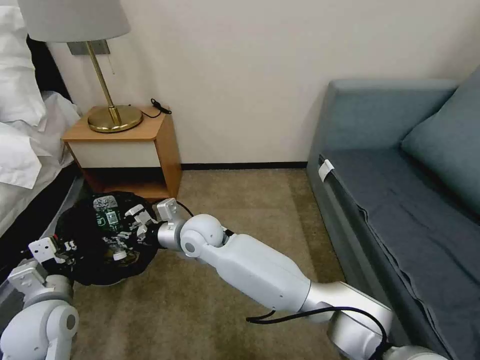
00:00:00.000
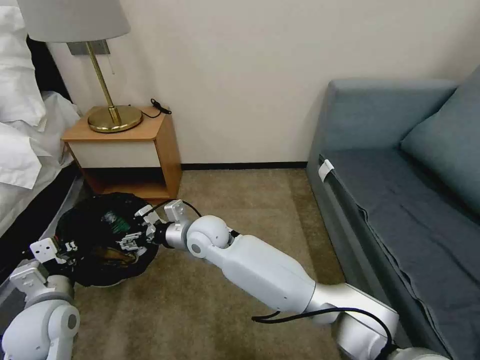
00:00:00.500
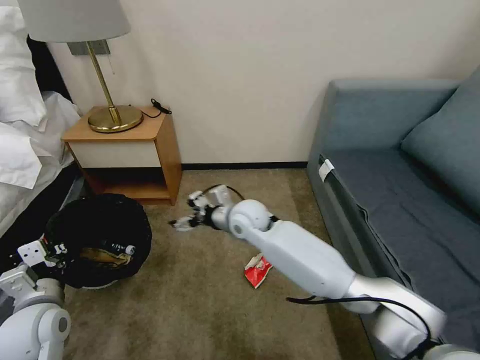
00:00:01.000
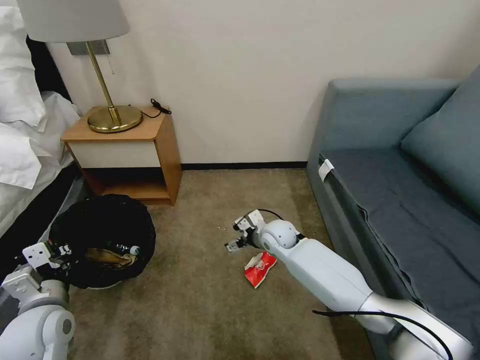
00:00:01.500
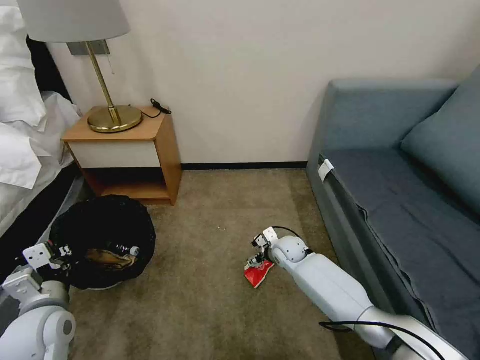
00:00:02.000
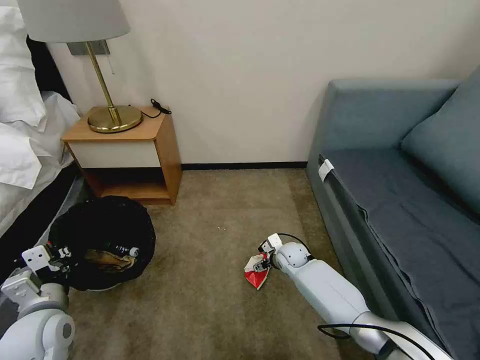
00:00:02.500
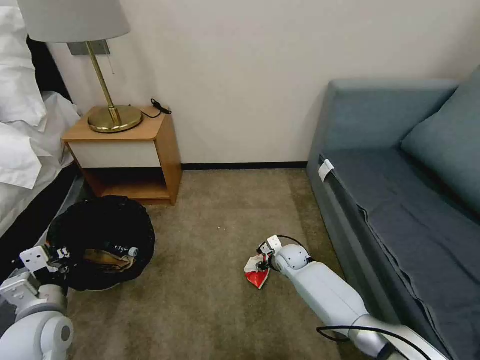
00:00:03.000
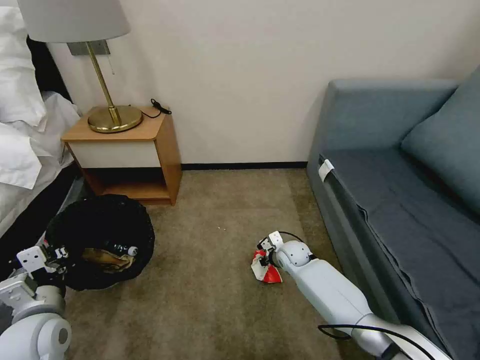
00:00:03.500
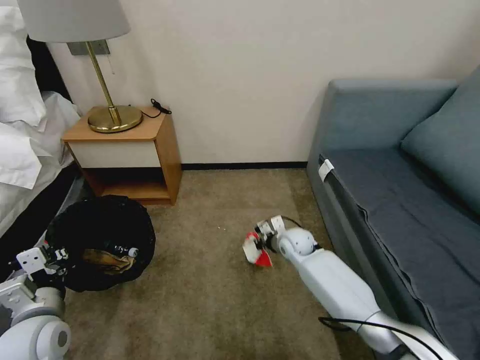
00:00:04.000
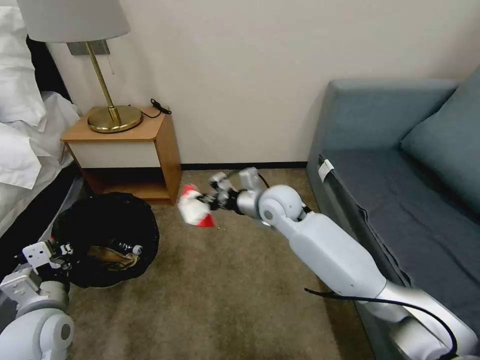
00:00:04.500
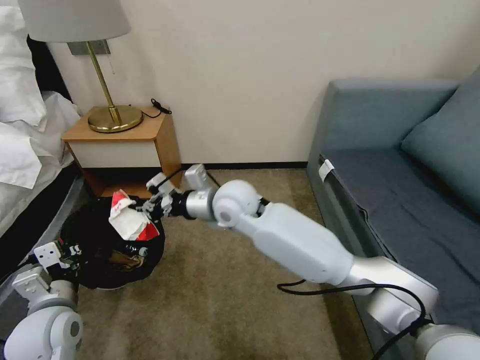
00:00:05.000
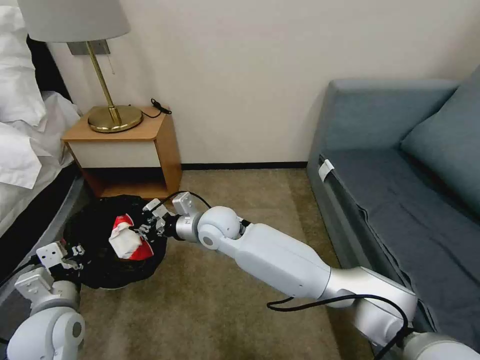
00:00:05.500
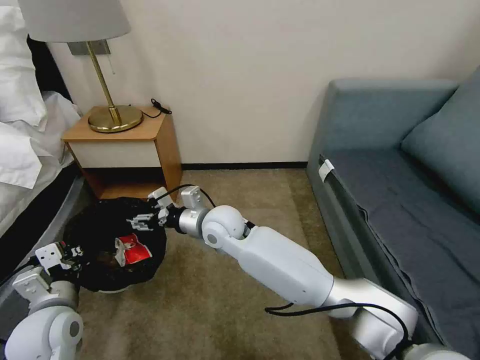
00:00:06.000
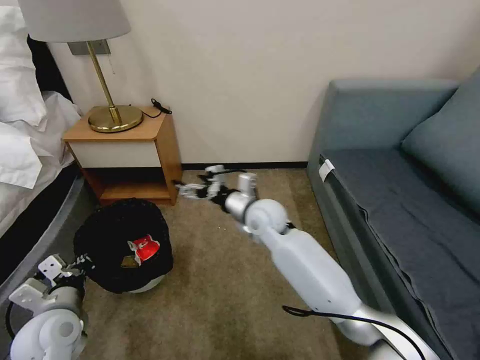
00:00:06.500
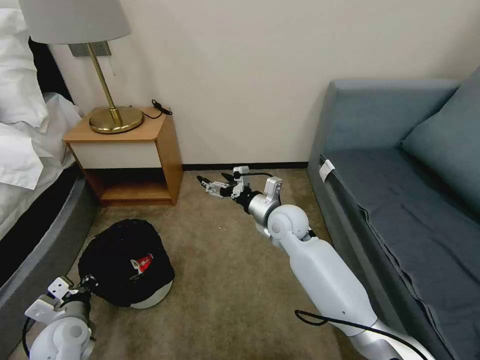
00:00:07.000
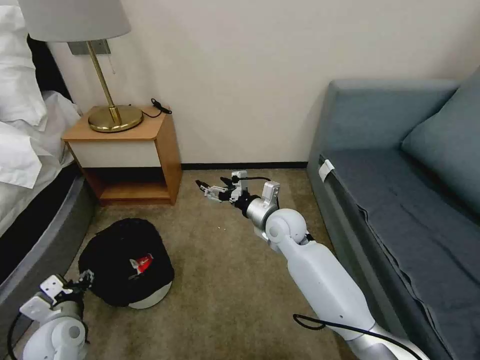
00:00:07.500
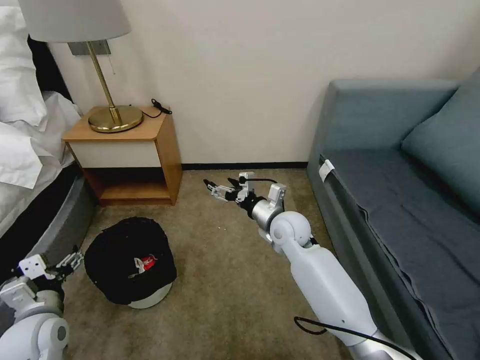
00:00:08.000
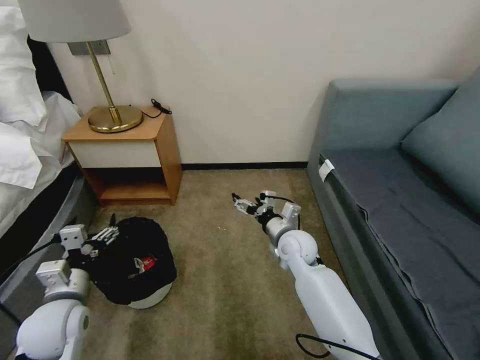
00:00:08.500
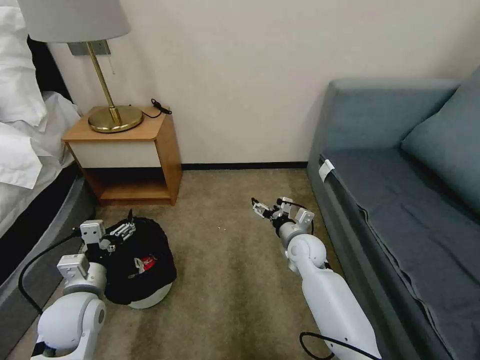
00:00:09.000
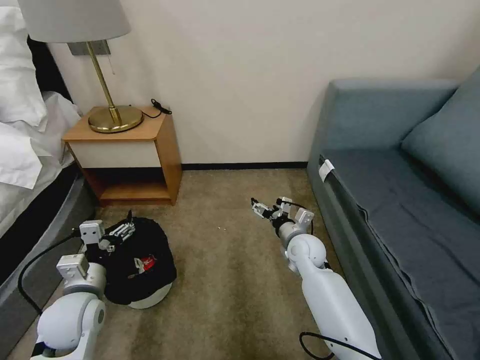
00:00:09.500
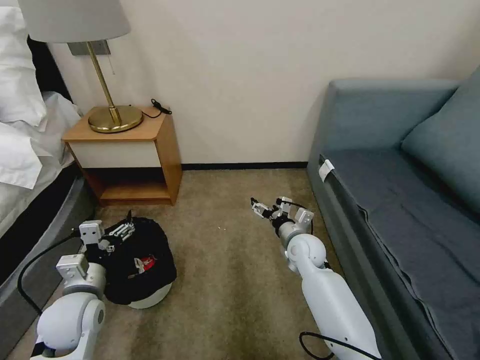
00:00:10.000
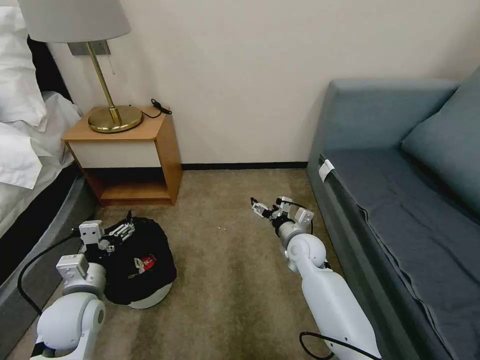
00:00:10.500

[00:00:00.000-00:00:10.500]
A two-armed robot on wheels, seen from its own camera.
Task of the whole recording: Pick up the trash bin, then pick up the garbage on the floor and place it into the trash bin.
00:00:00.000 to 00:00:02.000: The right gripper heads to the right and downward, covering roughly 30 cm, and opens its fingers.
00:00:02.000 to 00:00:04.000: The right gripper closes.
00:00:04.000 to 00:00:06.500: The right gripper moves to the left and upward, about 25 cm, and opens.
00:00:06.500 to 00:00:08.500: The right gripper goes some 20 cm to the right and downward; the left gripper moves approximately 10 cm downward and comes back, and opens up.
00:00:08.500 to 00:00:10.500: The grippers move only a little.

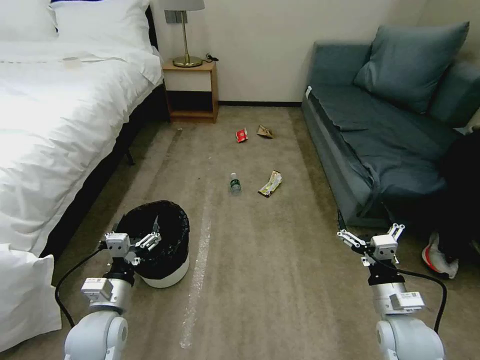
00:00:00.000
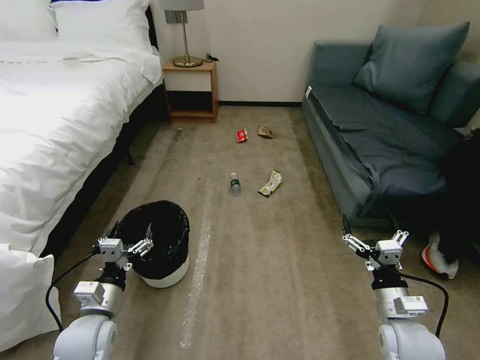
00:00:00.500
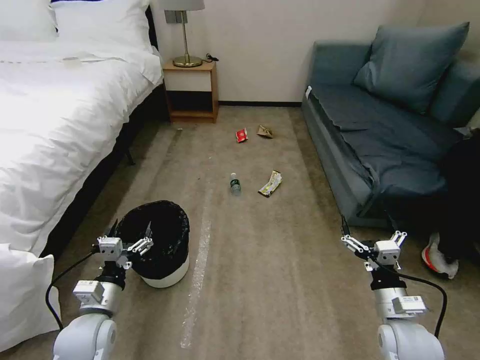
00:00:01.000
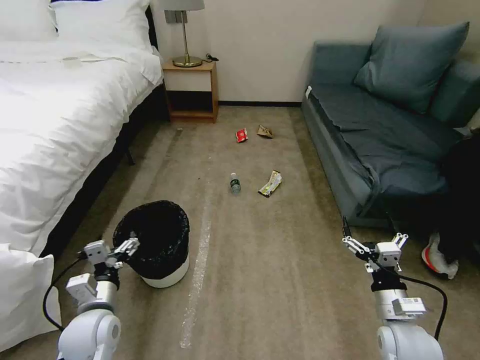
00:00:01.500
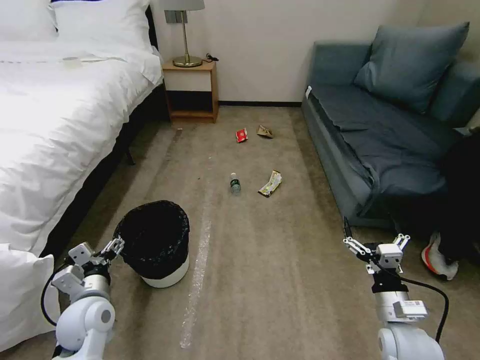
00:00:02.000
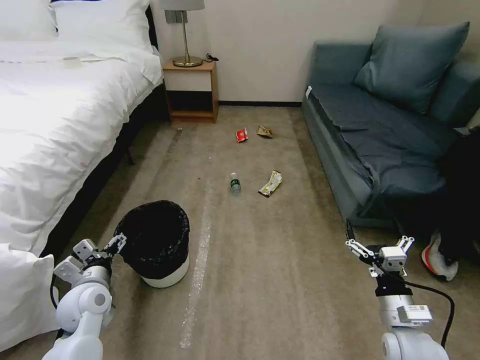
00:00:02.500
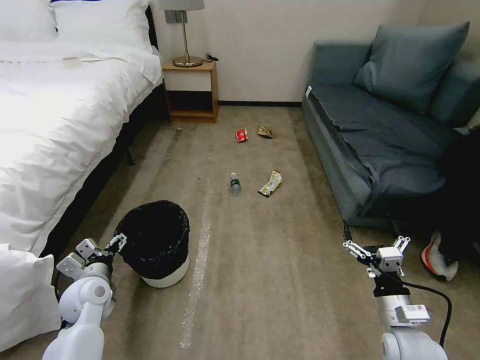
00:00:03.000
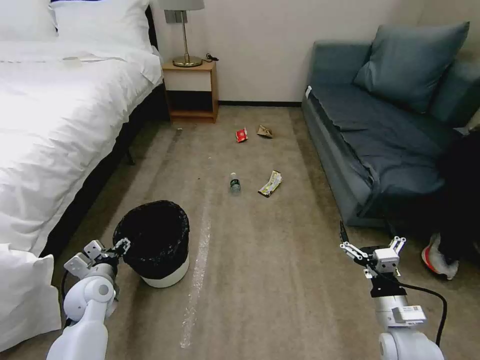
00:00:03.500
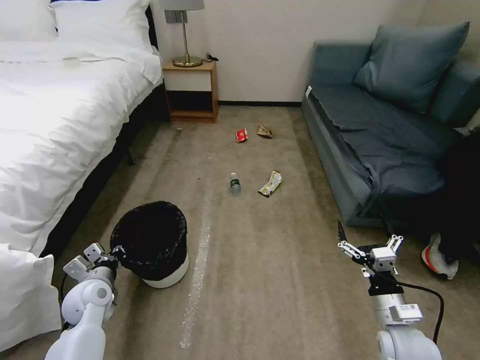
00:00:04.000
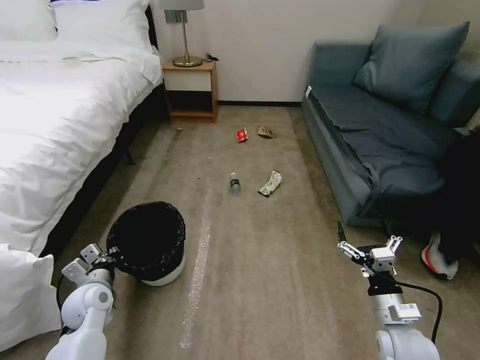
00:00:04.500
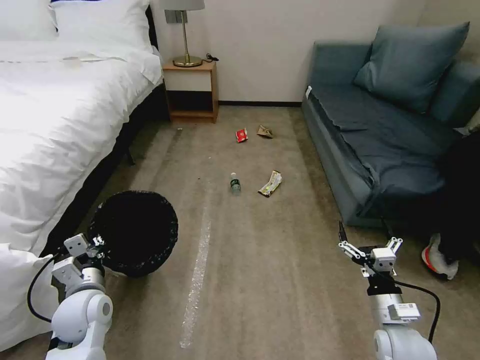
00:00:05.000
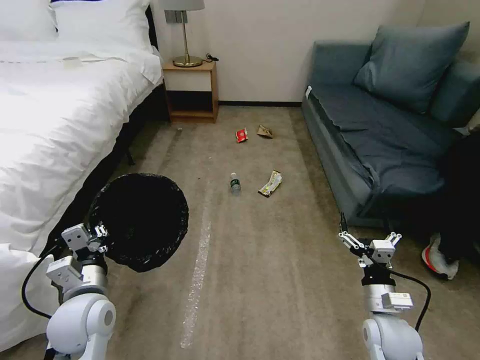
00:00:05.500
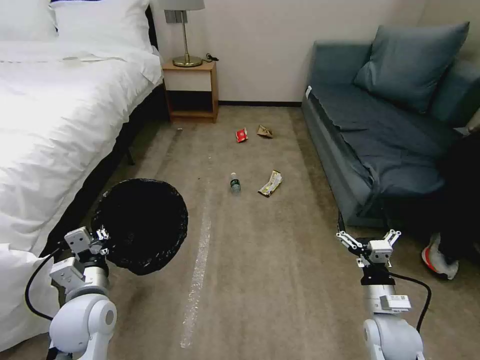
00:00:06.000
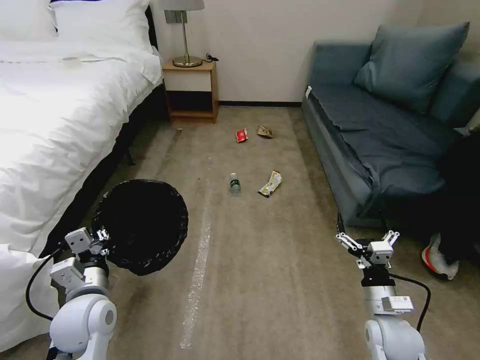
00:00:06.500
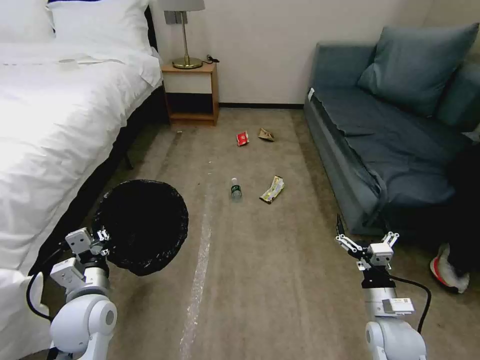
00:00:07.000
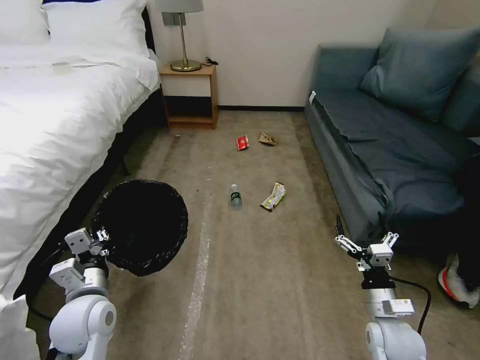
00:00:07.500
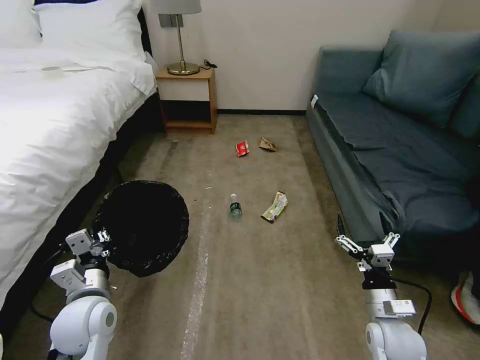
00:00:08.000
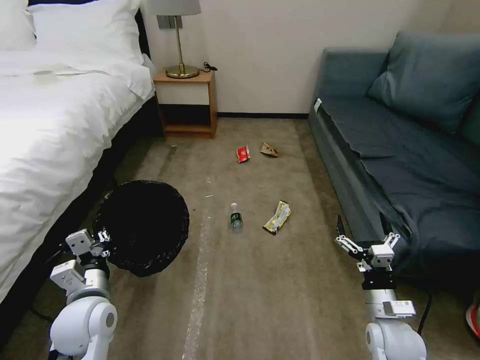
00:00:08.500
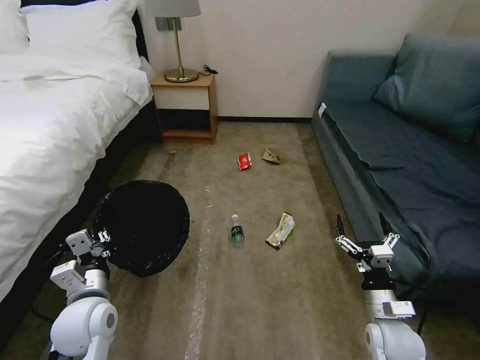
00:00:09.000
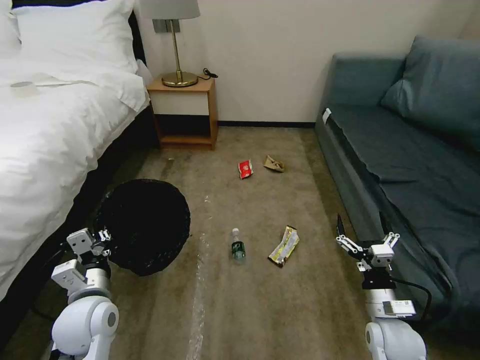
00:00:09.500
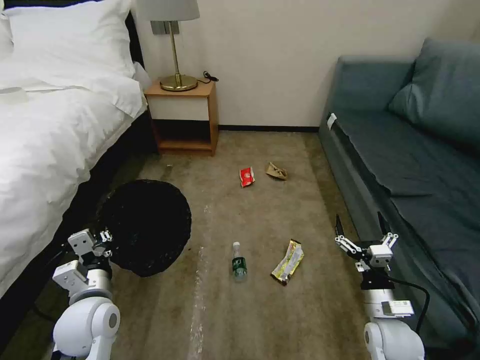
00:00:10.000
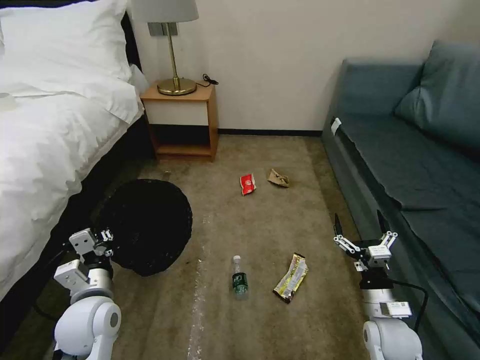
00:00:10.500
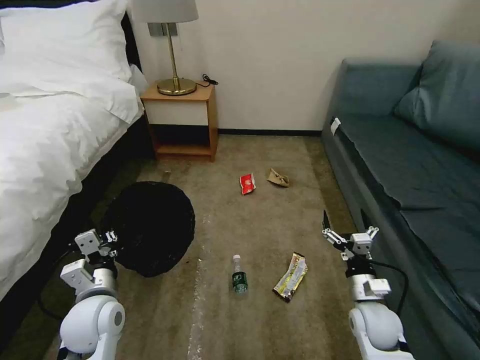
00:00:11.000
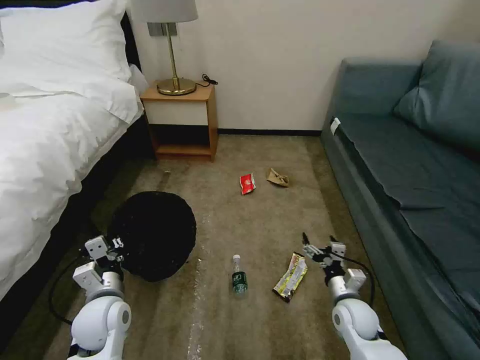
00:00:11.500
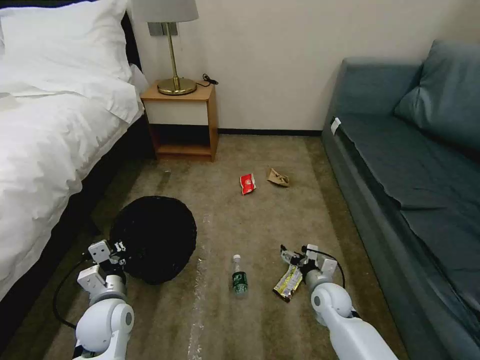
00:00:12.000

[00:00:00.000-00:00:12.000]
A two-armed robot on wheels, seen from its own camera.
Task of the whole recording: Pick up the trash bin, then pick up the garbage on the floor and place it into the trash bin.
00:00:02.000 to 00:00:04.000: The left gripper shifts by about 5 cm, and closes.
00:00:04.000 to 00:00:06.000: The left gripper shifts roughly 10 cm upward, backward and to the right.
00:00:10.000 to 00:00:12.000: The left gripper is displaced downward by some 5 cm, while the right gripper shifts some 15 cm forward, to the left and downward.

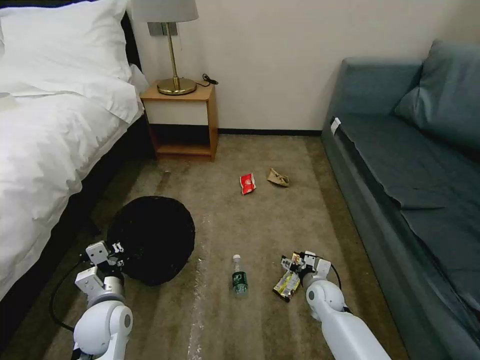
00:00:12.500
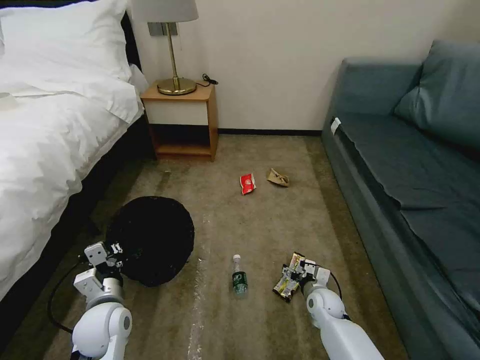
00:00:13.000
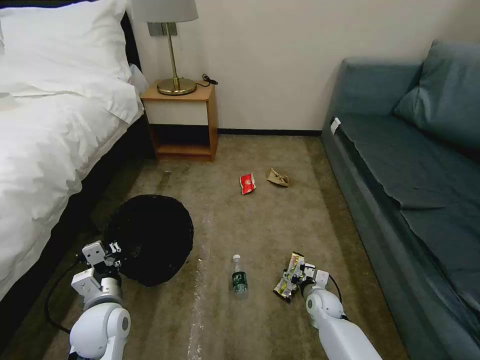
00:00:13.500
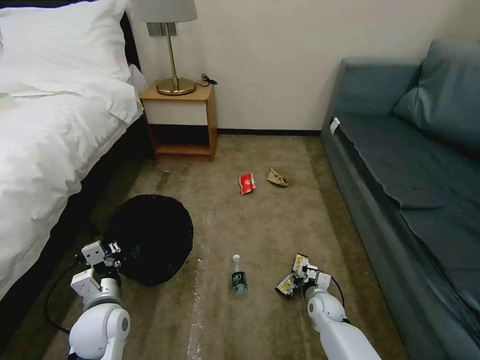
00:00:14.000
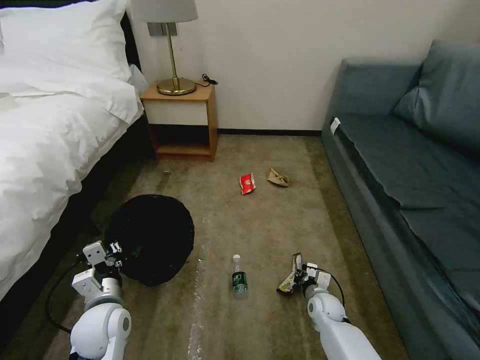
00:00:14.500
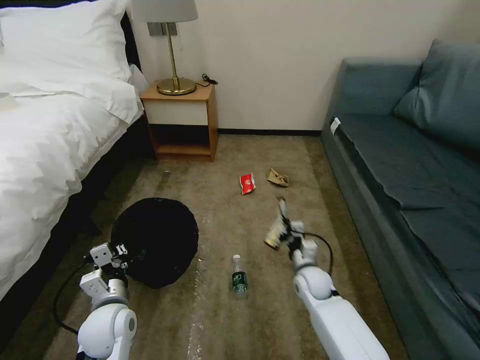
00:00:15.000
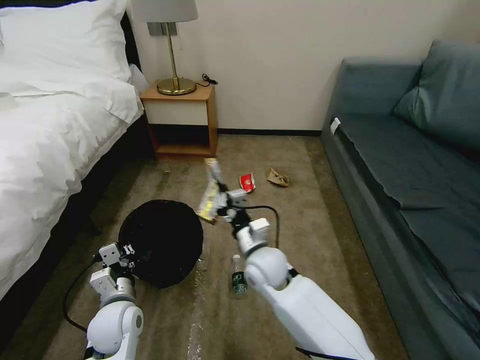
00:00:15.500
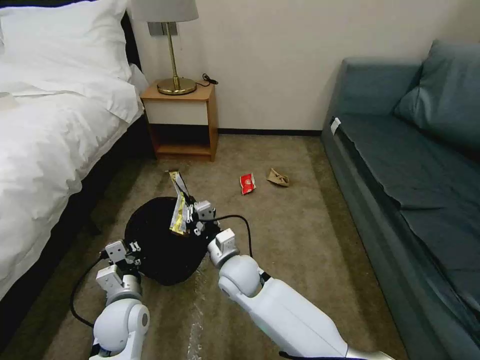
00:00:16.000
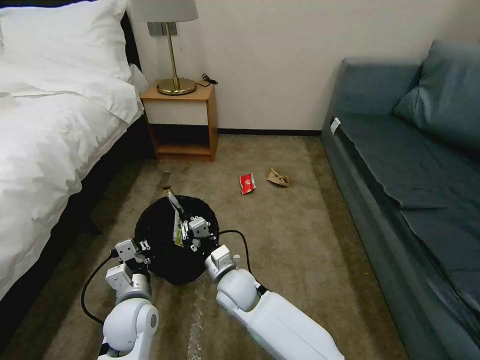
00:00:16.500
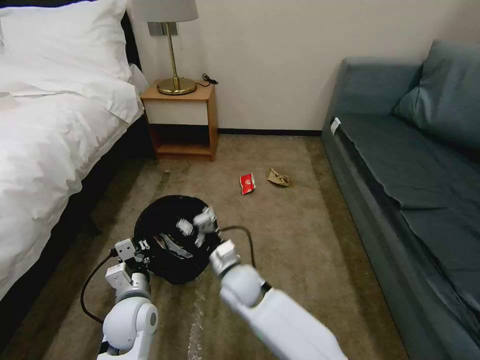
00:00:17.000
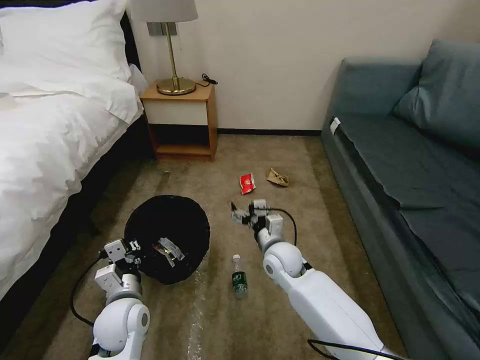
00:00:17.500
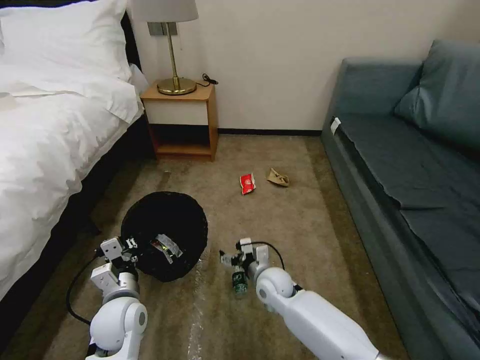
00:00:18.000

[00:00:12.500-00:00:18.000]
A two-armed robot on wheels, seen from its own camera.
Task of the whole recording: Pick up the trash bin, then pick up the garbage on the floor and place it into the trash bin.
00:00:12.500 to 00:00:14.500: The right gripper shifts roughly 5 cm downward, and closes up.
00:00:14.500 to 00:00:16.000: The right gripper is displaced to the left and upward by about 35 cm.
00:00:16.000 to 00:00:18.000: The right gripper moves to the right and downward, approximately 15 cm, and opens its fingers.
